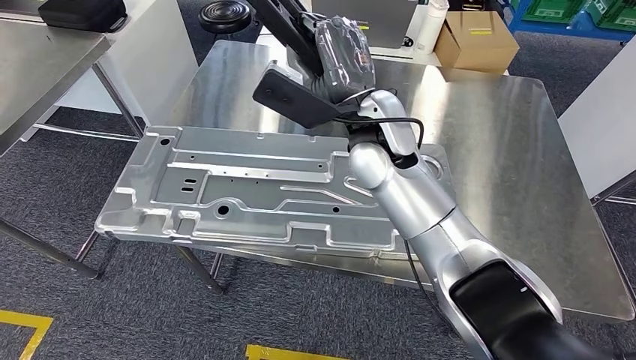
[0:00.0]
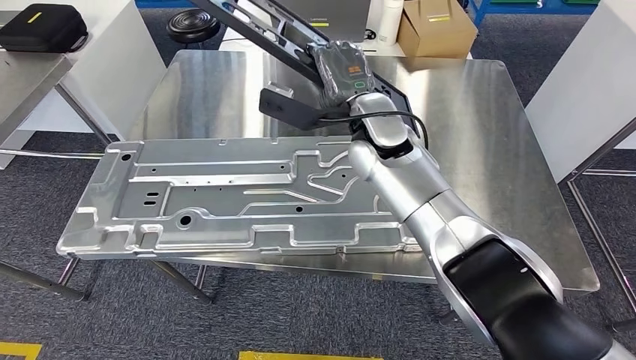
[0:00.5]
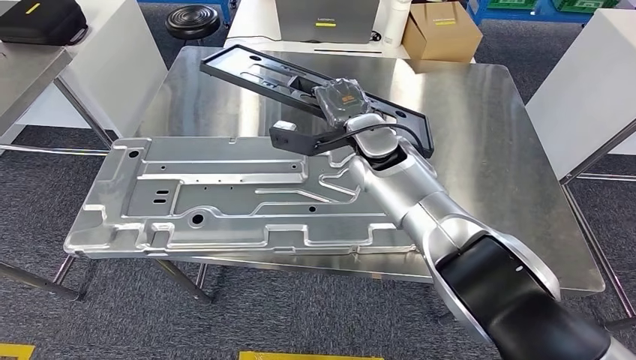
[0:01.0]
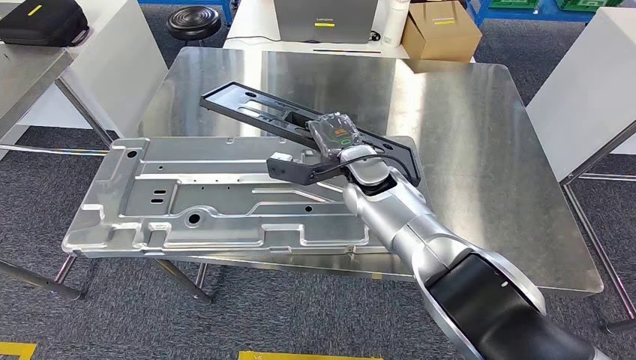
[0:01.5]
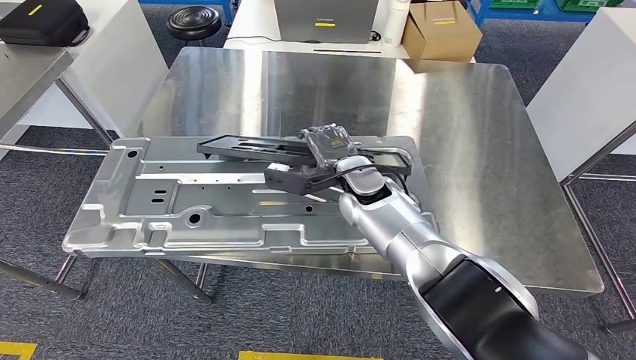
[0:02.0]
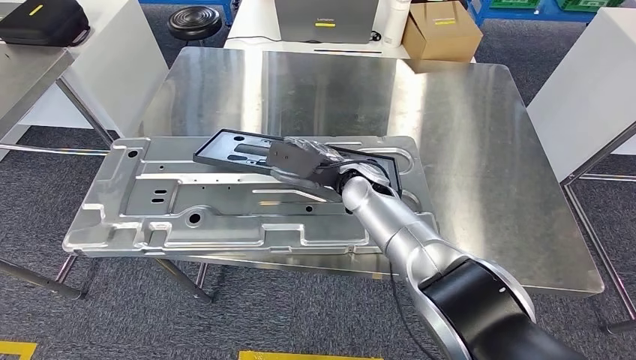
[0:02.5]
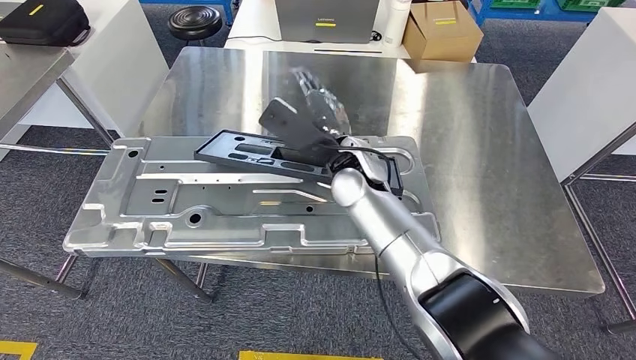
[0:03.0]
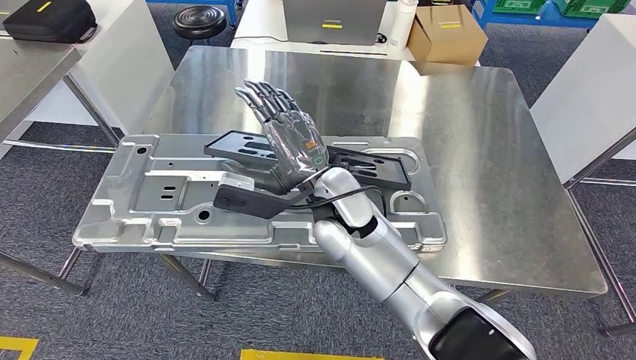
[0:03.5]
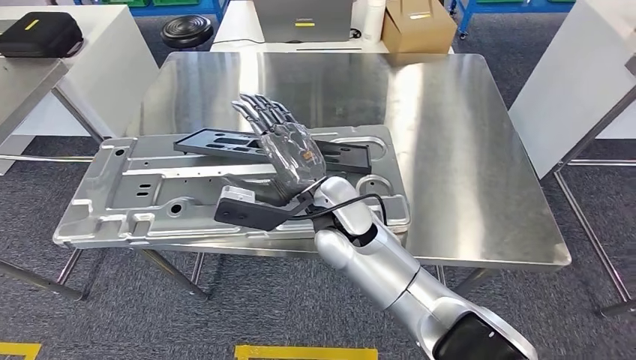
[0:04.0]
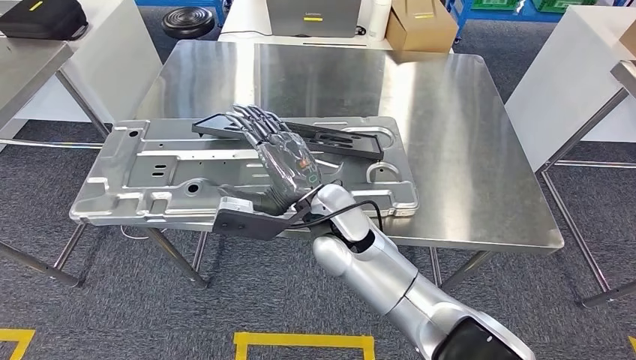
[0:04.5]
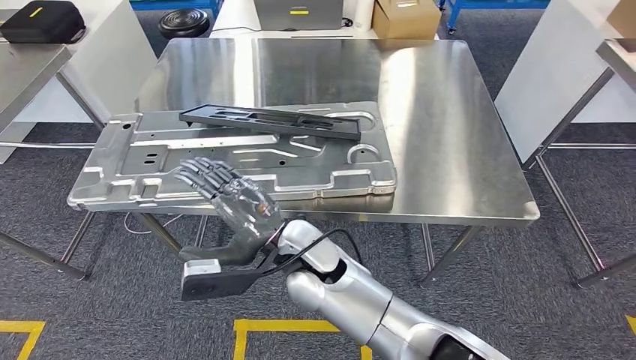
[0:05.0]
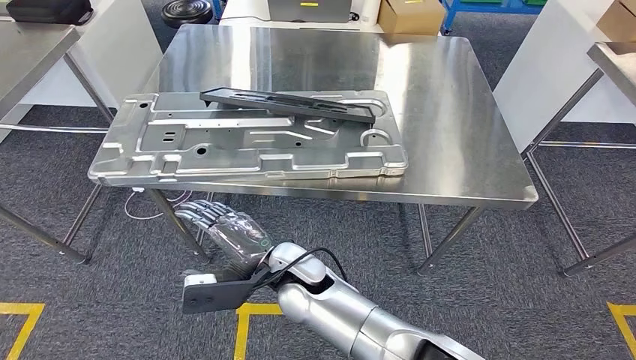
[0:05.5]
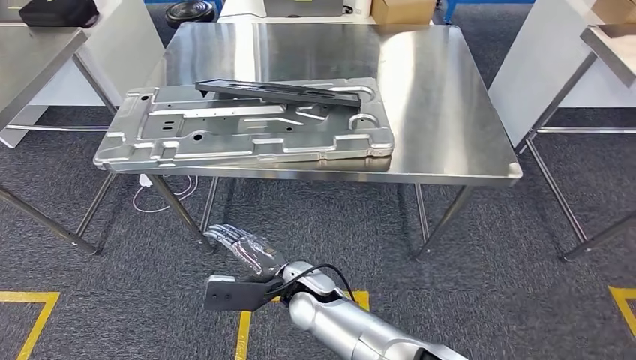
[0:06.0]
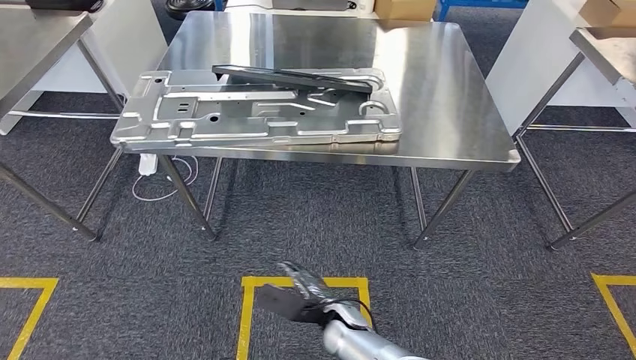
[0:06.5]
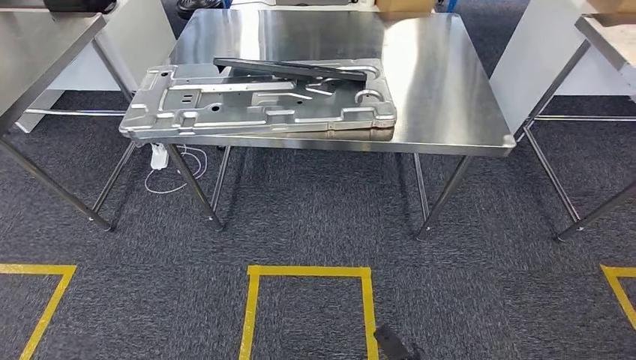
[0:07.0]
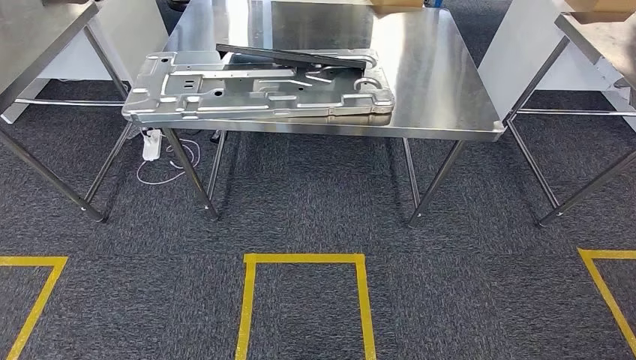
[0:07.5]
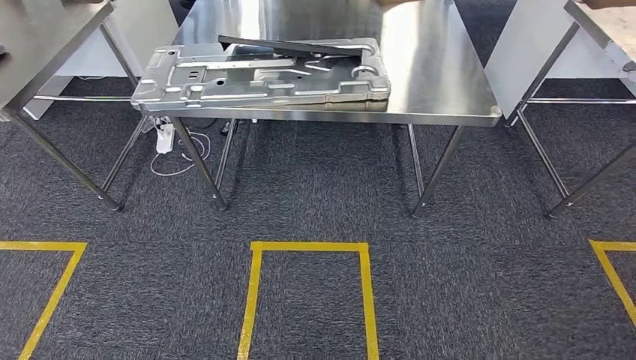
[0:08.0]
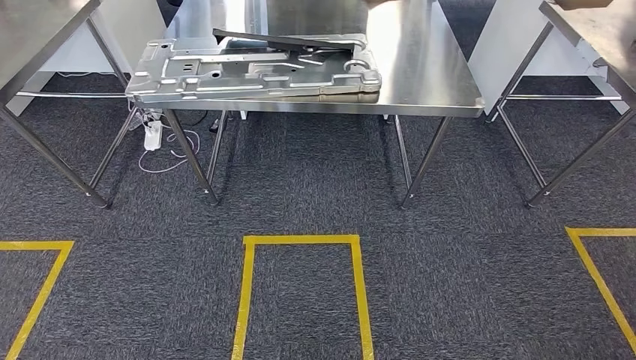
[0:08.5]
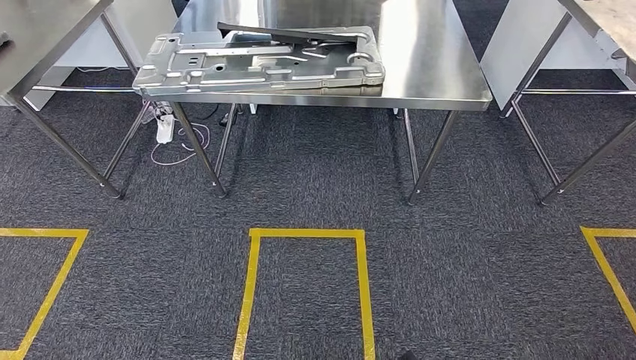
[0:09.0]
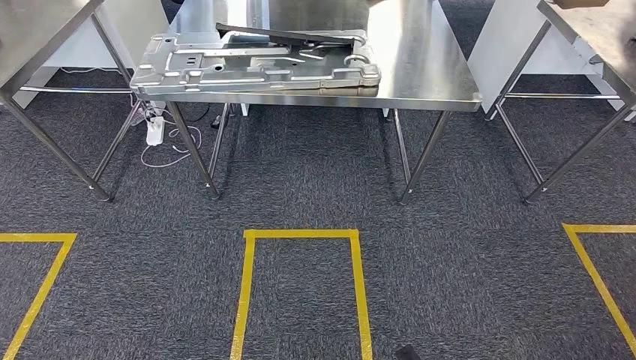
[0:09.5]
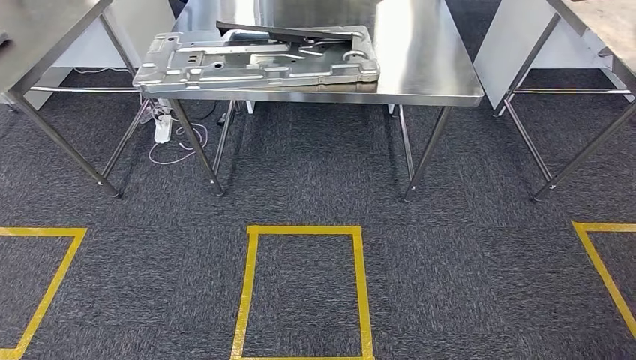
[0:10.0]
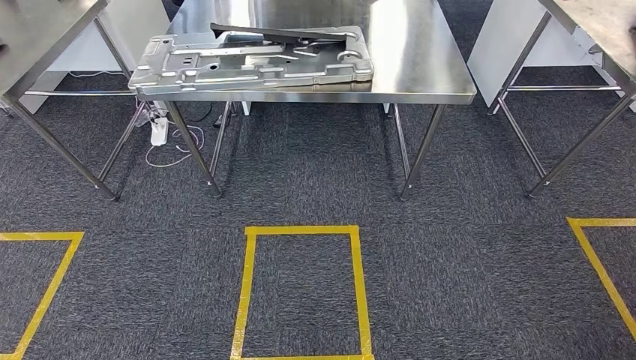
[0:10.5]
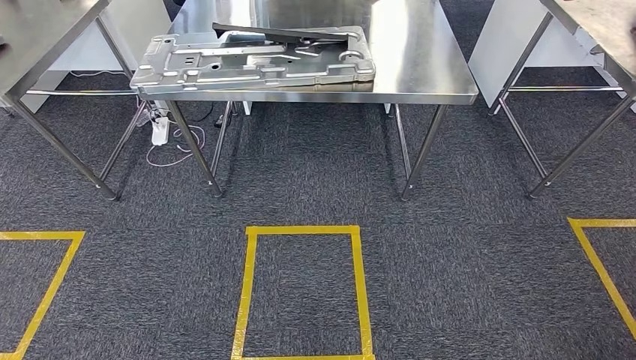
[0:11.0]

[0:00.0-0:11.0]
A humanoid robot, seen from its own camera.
Step, 0:00.0 to 0:04.0: Insert the large material into the corresponding slot on the workbench.
Step, 0:05.0 to 0:11.0: Return to the initial position at the shelf.
0:09.0 to 0:11.0: The left hand moves backward and to the left, about 10 cm; the right hand travels backward by some 5 cm.
